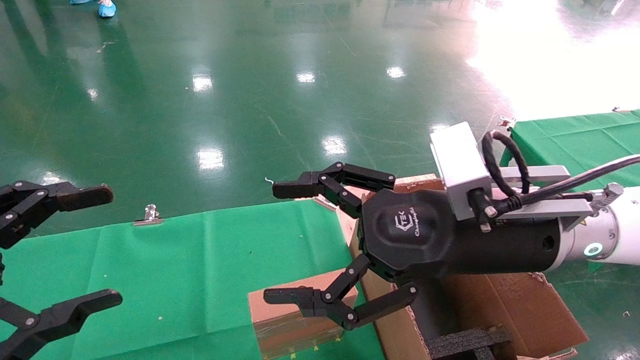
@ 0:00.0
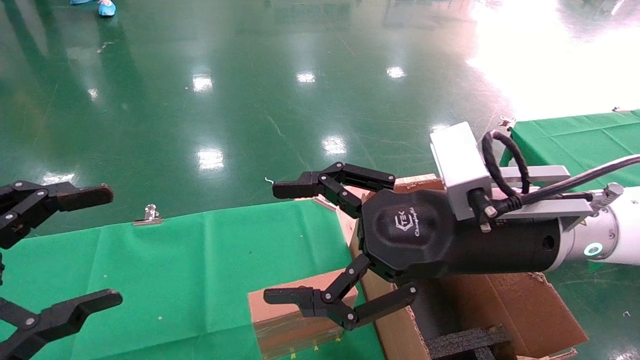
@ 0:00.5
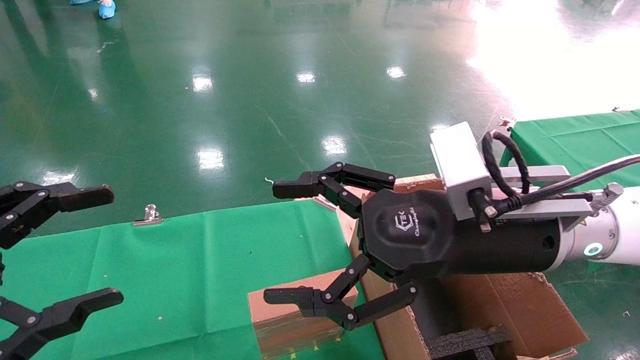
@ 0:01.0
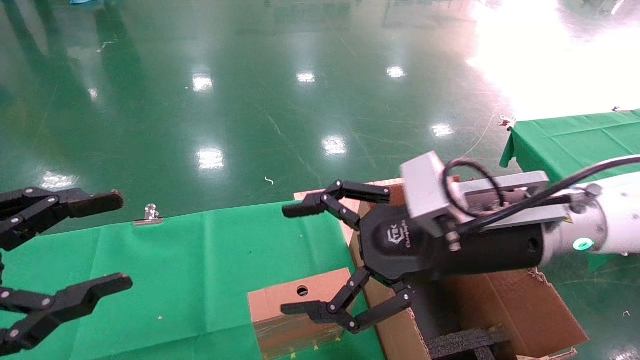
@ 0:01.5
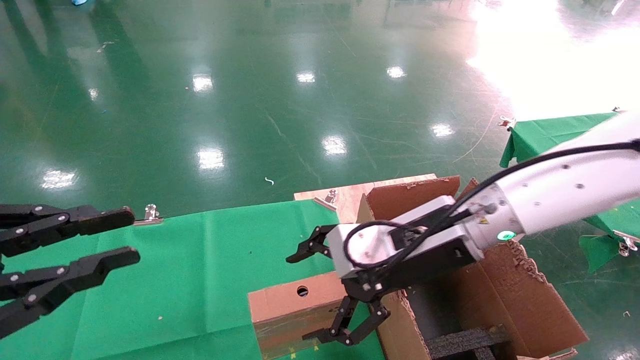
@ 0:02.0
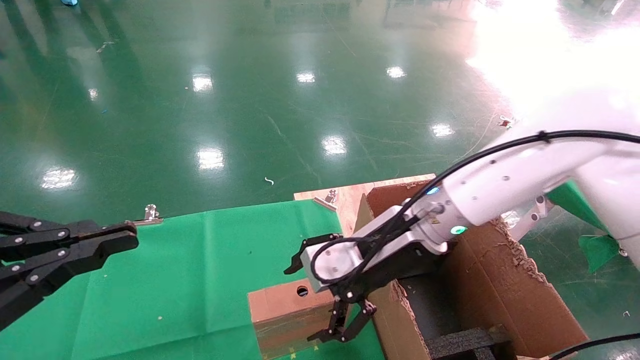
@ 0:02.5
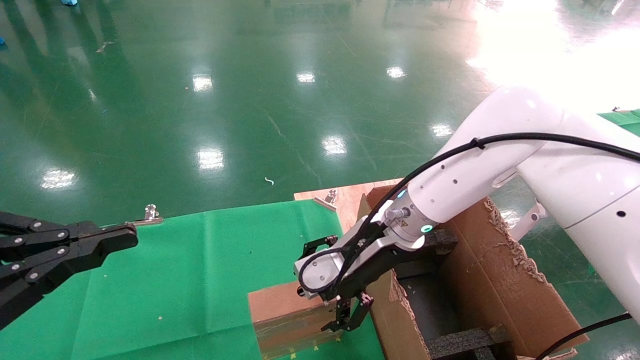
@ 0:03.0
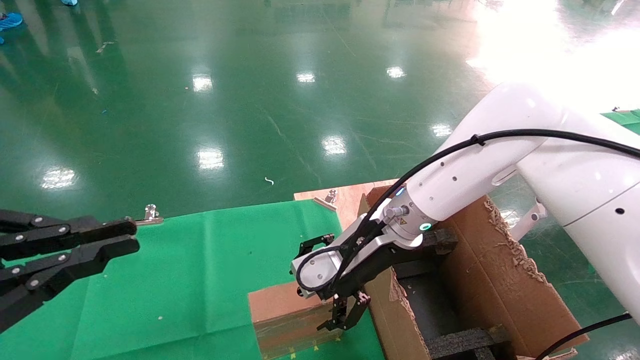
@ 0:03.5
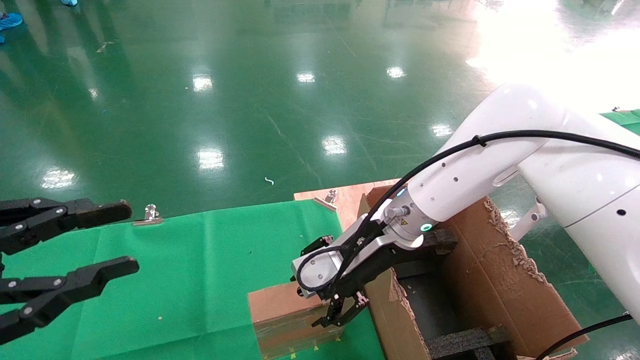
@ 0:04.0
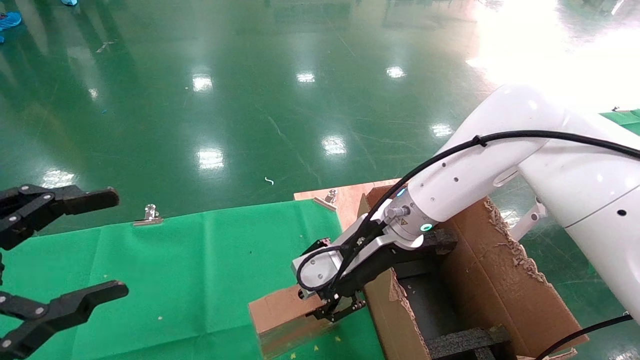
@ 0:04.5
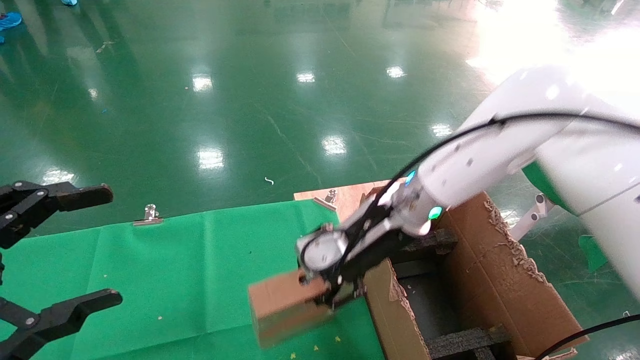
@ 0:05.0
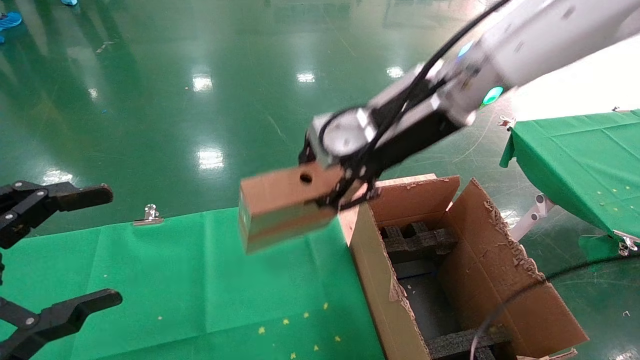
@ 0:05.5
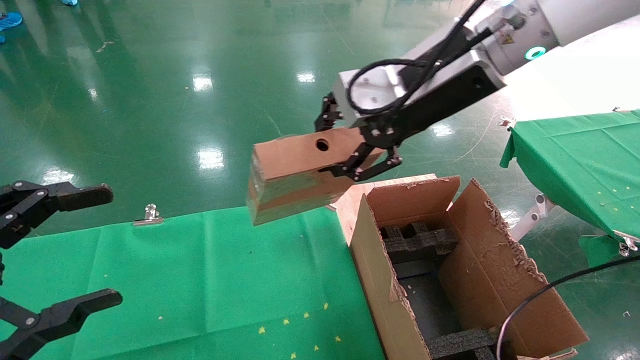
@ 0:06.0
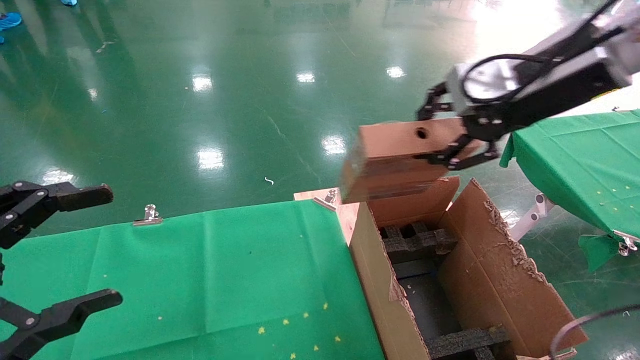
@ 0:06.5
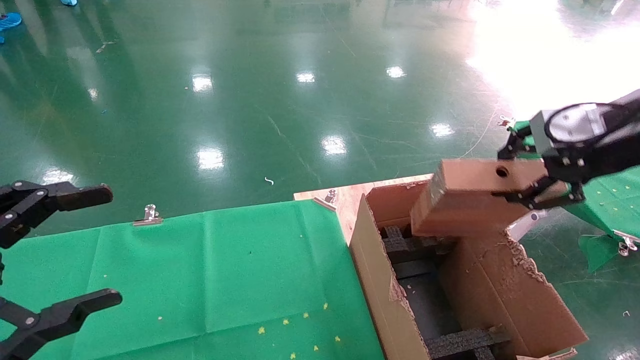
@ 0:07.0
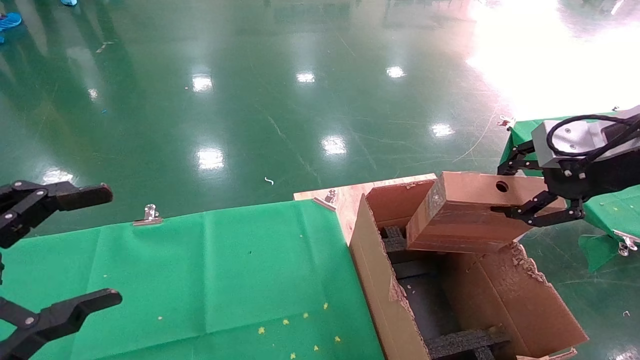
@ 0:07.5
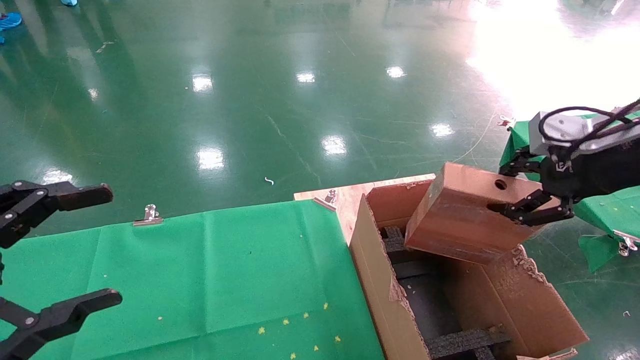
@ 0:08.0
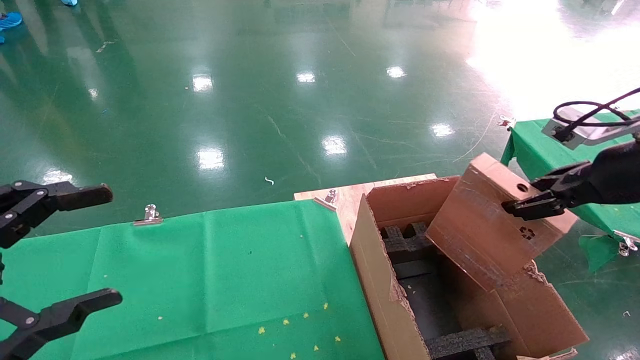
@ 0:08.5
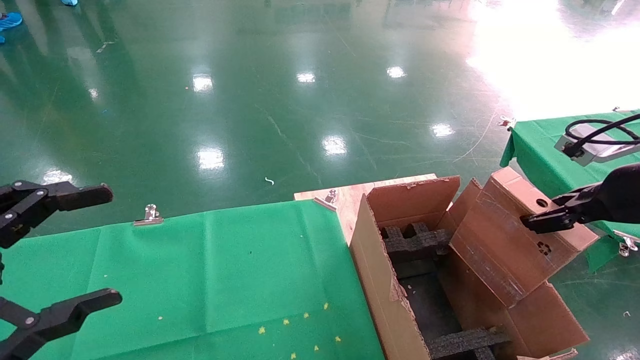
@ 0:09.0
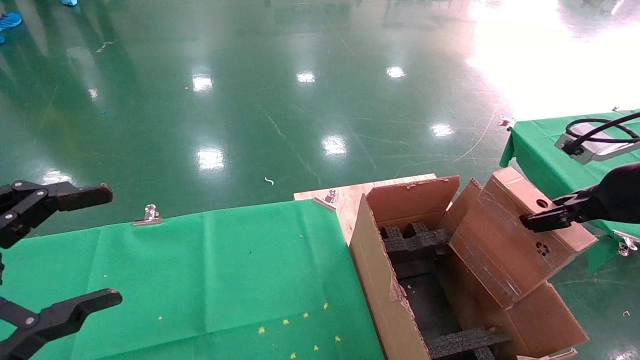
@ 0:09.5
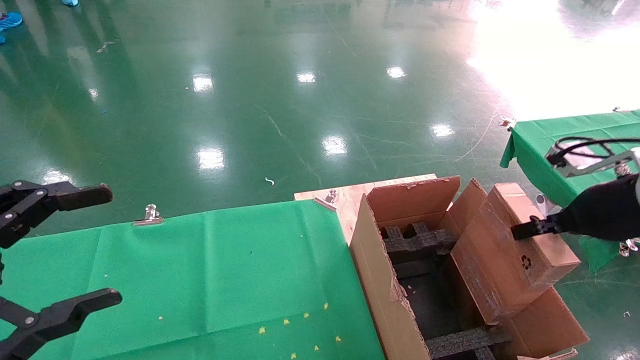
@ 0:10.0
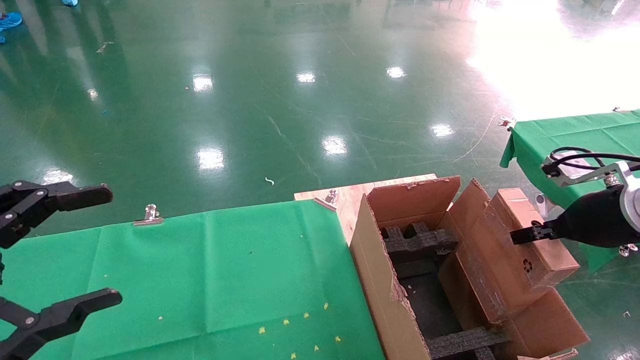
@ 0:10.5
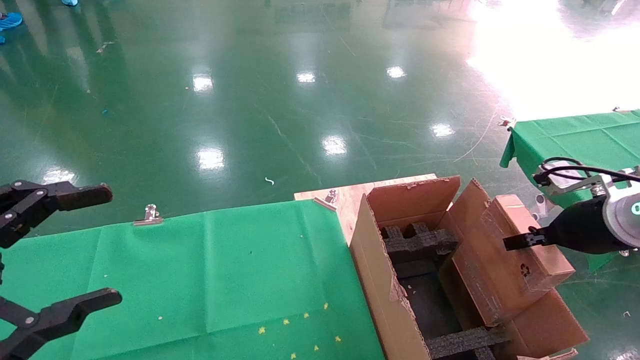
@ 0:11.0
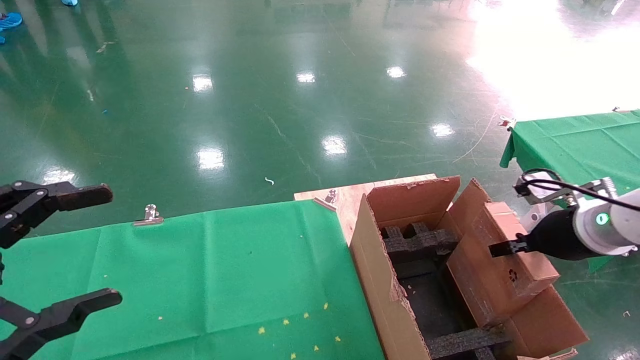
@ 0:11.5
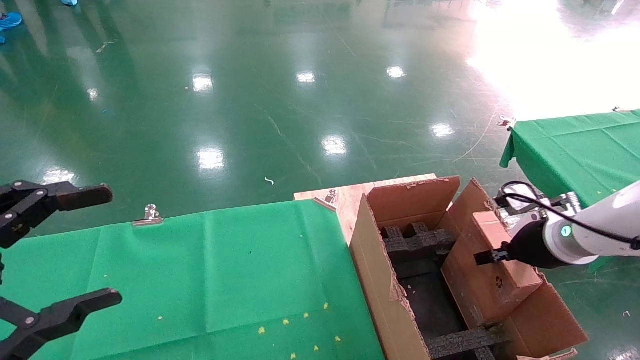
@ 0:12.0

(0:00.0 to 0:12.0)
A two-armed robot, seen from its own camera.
Task of the whole recording: using a robotic arm to pick up a cardboard box and palace it the carton.
Step, 0:02.0 - 0:04.5: Pick up the mouse and the power cord paper box.
0:00.0 - 0:02.0: The left gripper closes. Meanwhile the right gripper goes roughly 5 cm forward.
0:02.0 - 0:04.0: The right gripper is displaced forward by about 5 cm.
0:04.0 - 0:06.0: The left gripper opens its fingers. The right gripper travels upward by roughly 20 cm, and closes its fingers.
0:06.0 - 0:08.0: The right gripper travels to the right by some 20 cm.
0:08.0 - 0:10.0: The right gripper moves downward, approximately 5 cm.
0:10.0 - 0:12.0: The right gripper moves downward and forward, some 10 cm.

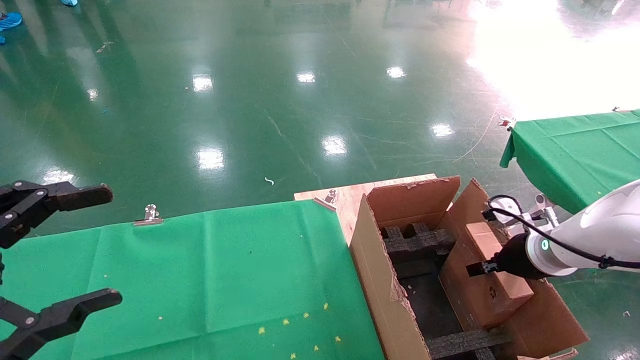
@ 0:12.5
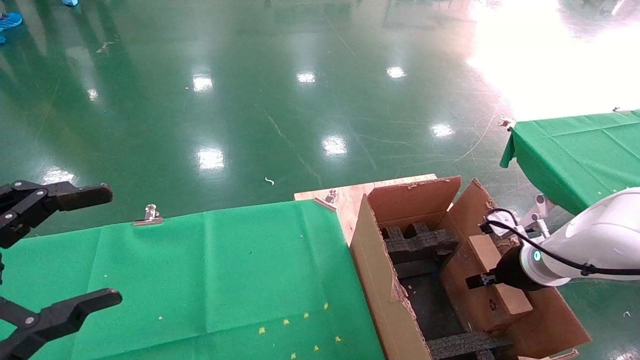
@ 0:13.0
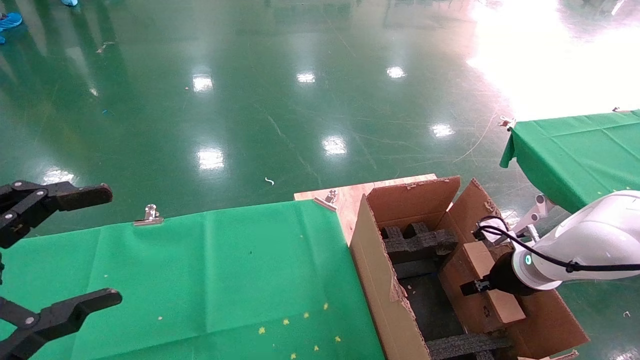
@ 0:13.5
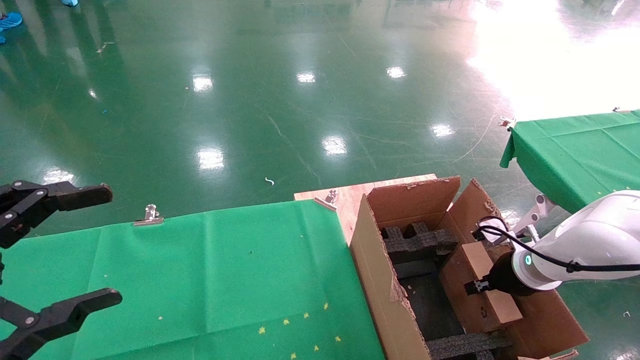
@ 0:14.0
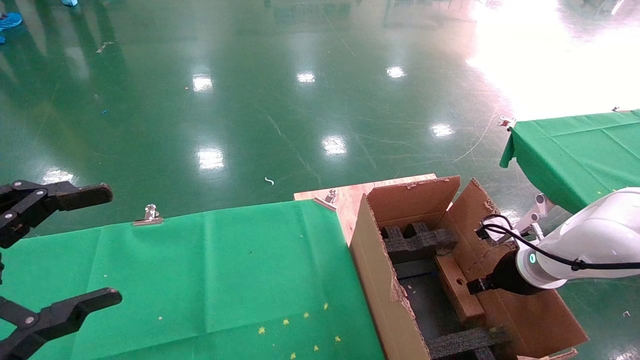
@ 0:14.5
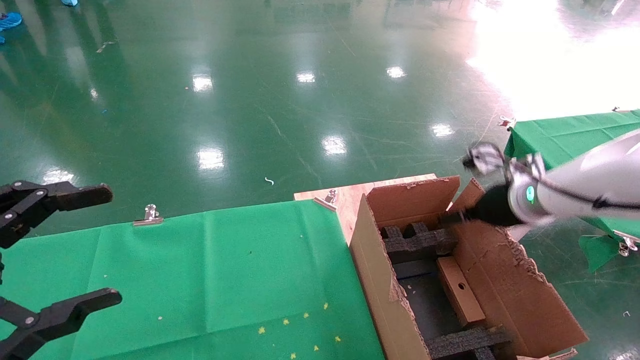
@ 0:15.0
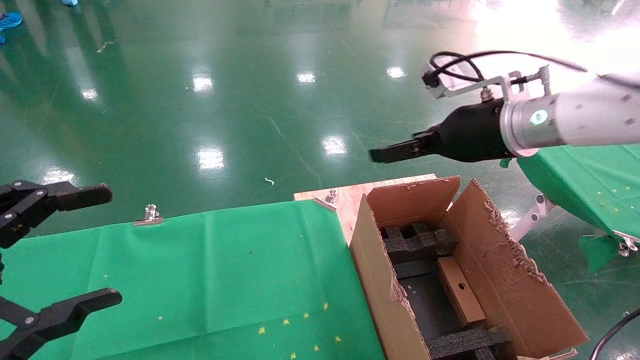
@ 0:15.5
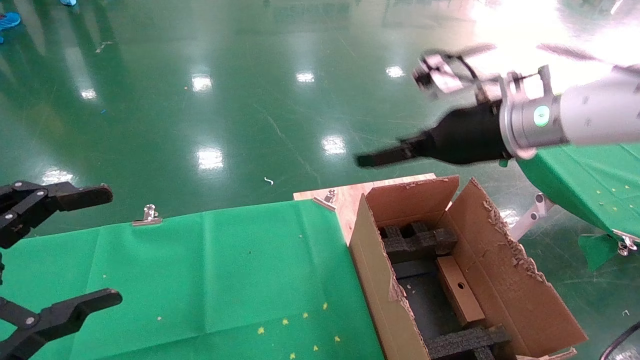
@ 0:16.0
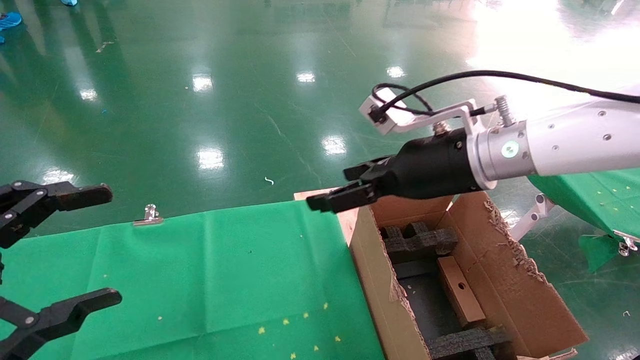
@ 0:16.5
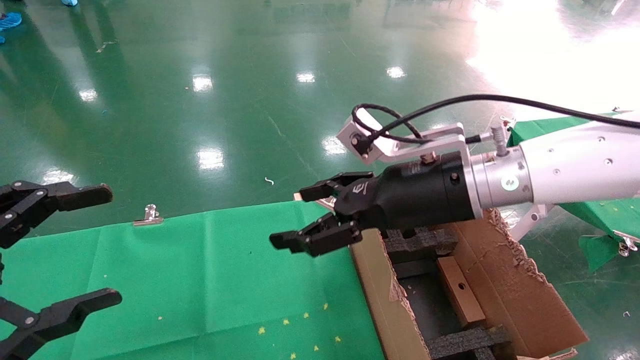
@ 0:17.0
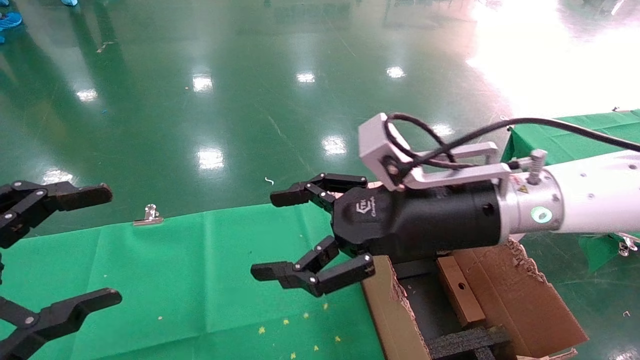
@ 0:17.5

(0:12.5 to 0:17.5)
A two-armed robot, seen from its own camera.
Task of the whole recording: using a robotic arm to pick up a cardboard box and palace it the carton.
Step, 0:12.5 - 0:14.5: Place the mouse and the power cord paper box into the container.
0:12.5 - 0:15.0: The right gripper travels upward by roughly 10 cm, and opens.
0:15.0 - 0:17.5: The right gripper moves to the left and backward, about 20 cm.

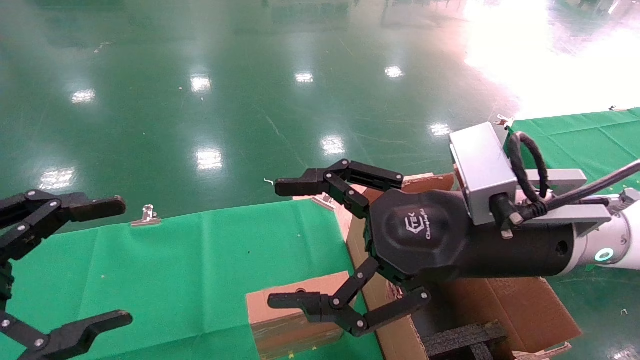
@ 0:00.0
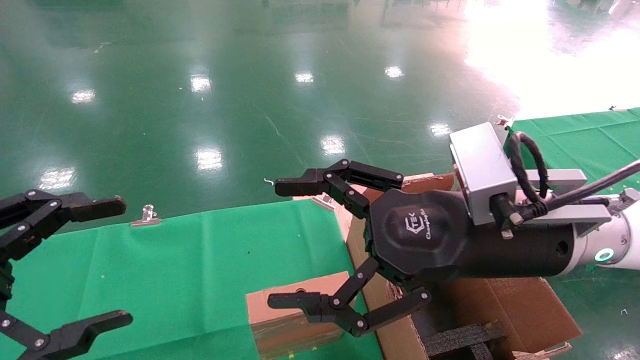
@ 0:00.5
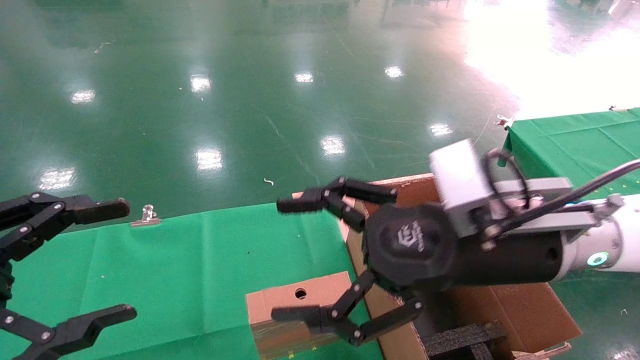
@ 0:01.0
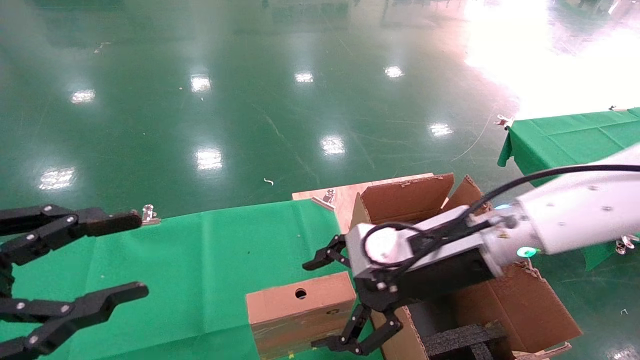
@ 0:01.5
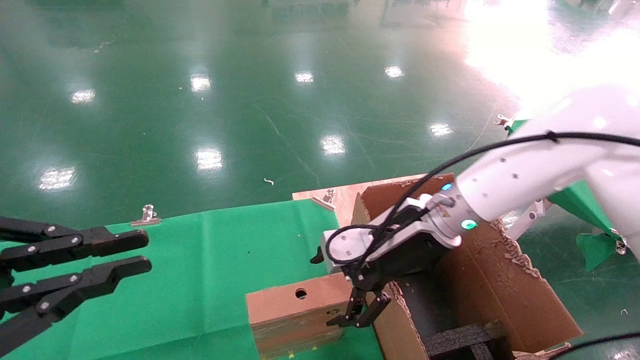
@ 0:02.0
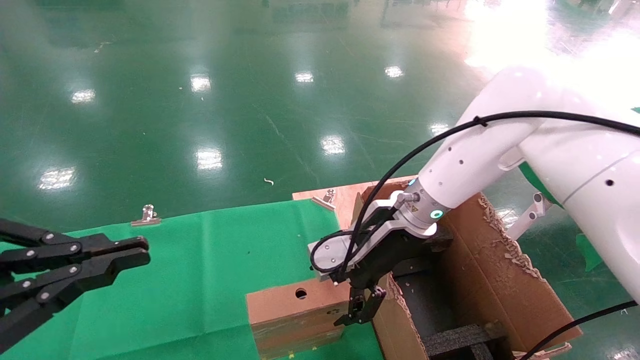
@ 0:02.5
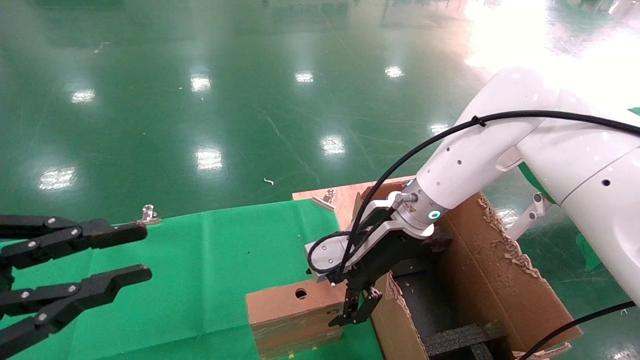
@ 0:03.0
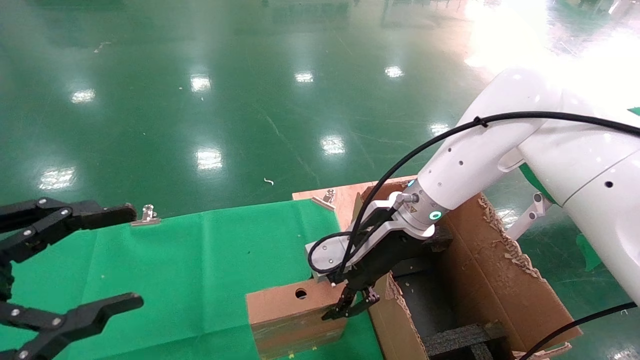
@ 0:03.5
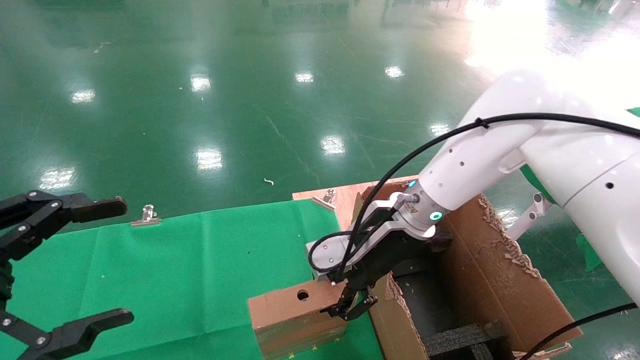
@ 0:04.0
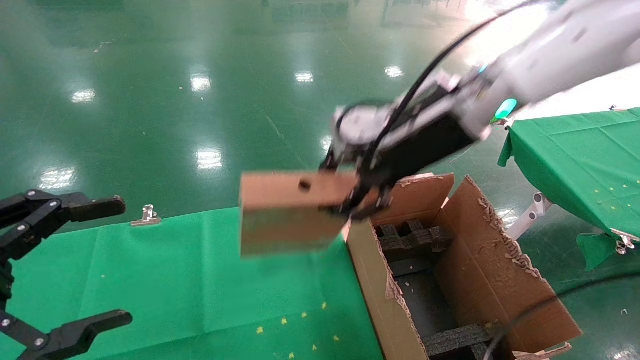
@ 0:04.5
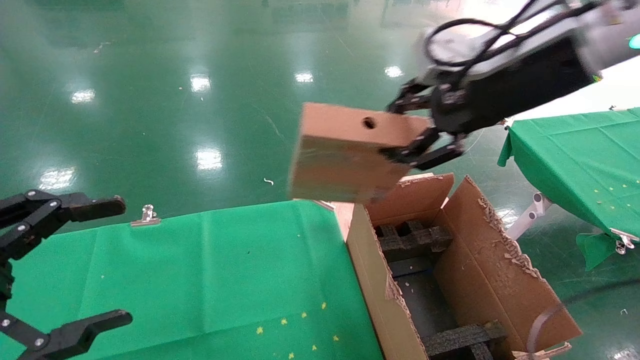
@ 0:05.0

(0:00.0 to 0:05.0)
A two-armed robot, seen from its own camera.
Task of the whole recording: using a robotic arm to pick up a cardboard box and palace it the carton.
Step, 0:01.5 - 0:03.5: Pick up the mouse and the power cord paper box.
0:00.0 - 0:02.5: The left gripper closes up. The right gripper travels forward by approximately 15 cm.
0:02.5 - 0:05.0: The right gripper heads upward, to the right and backward, covering approximately 25 cm, and closes, while the left gripper opens.
